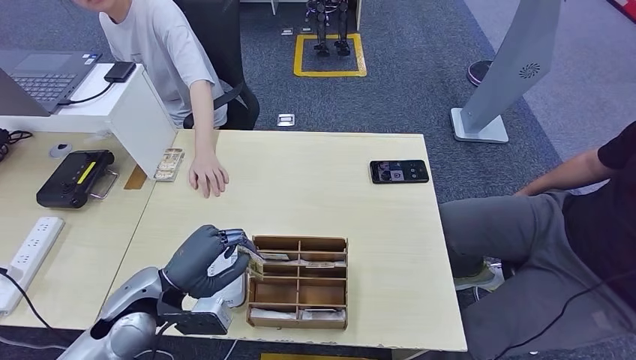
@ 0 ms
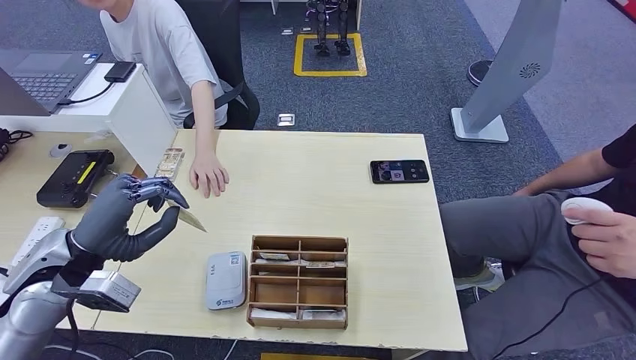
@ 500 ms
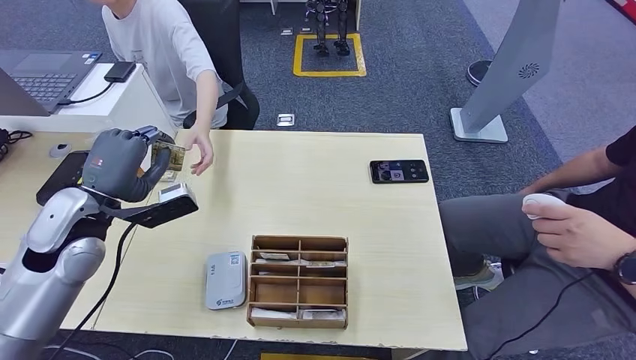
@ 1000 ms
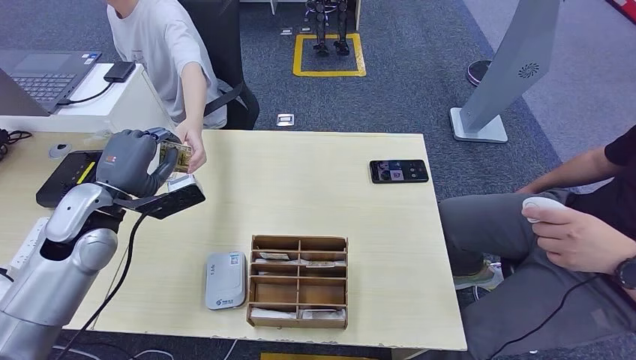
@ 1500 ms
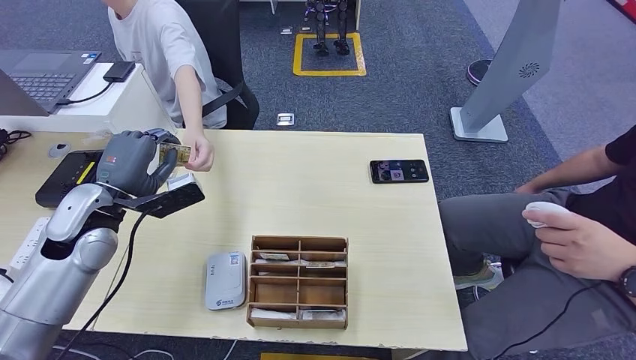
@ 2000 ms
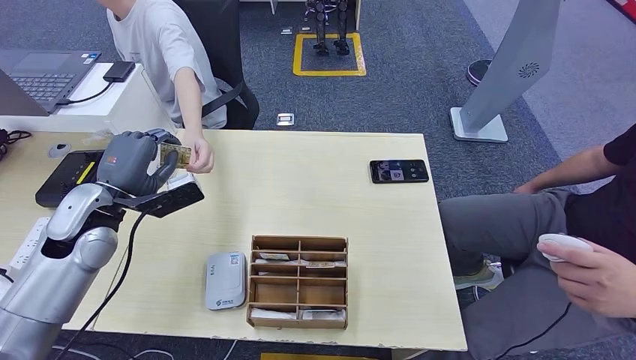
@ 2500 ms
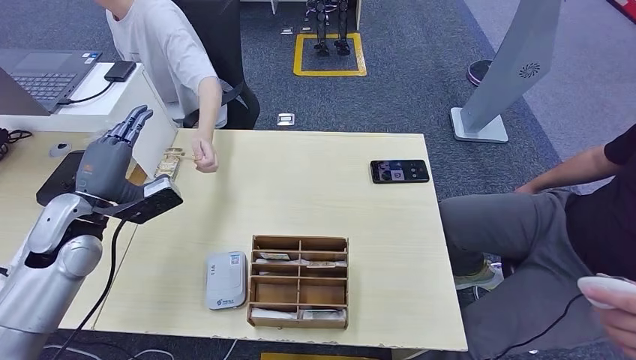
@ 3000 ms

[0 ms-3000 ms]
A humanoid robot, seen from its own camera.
Step, 500 ms to 2500 ms: Hand the room key to the person.
0 ms to 1500 ms: The left hand moves forward, upward and to the left, some 15 cm.
1500 ms to 3000 ms: The hands move only a little.
